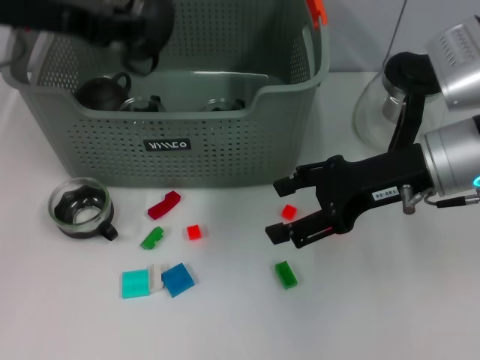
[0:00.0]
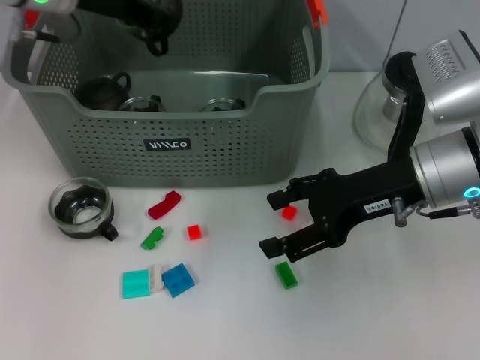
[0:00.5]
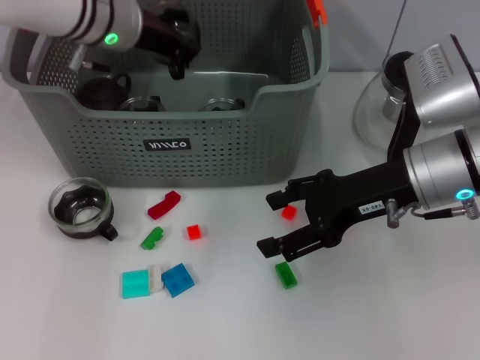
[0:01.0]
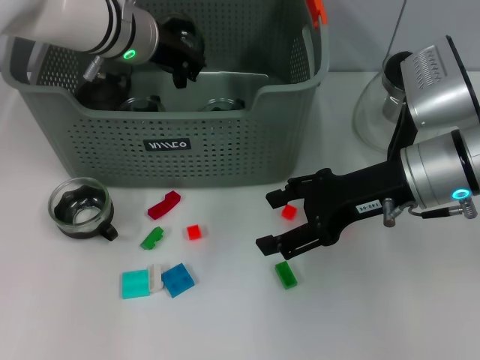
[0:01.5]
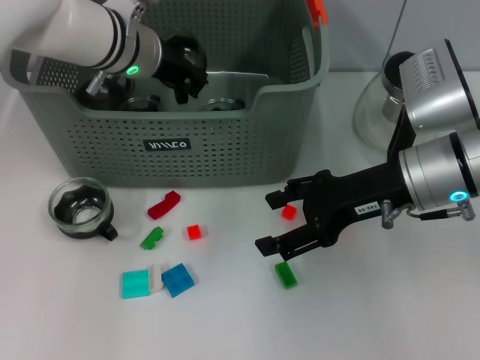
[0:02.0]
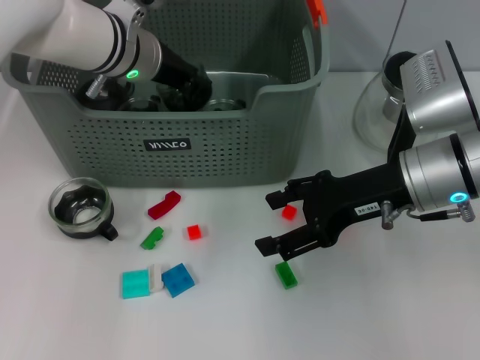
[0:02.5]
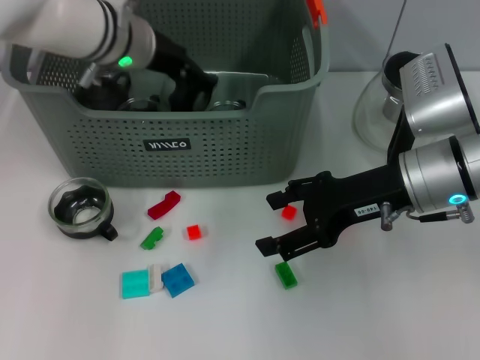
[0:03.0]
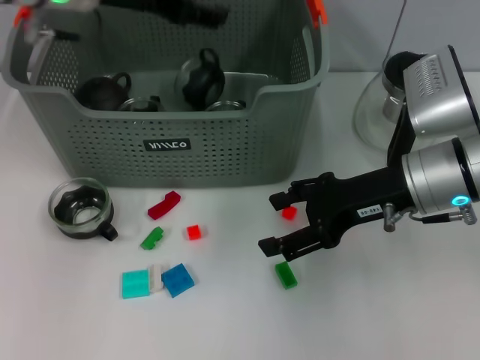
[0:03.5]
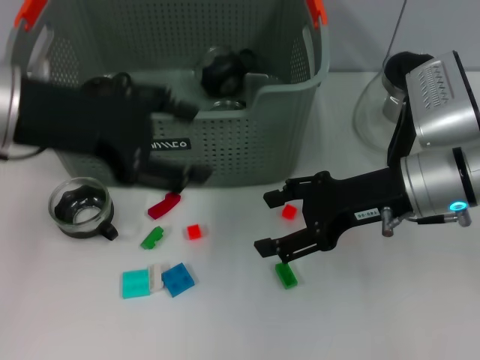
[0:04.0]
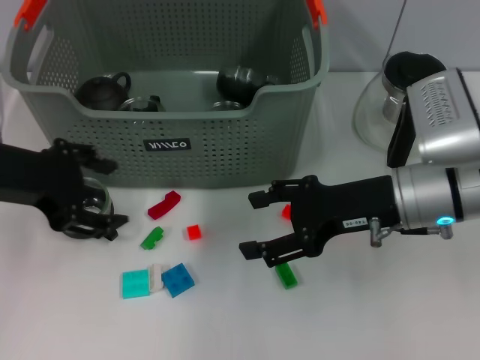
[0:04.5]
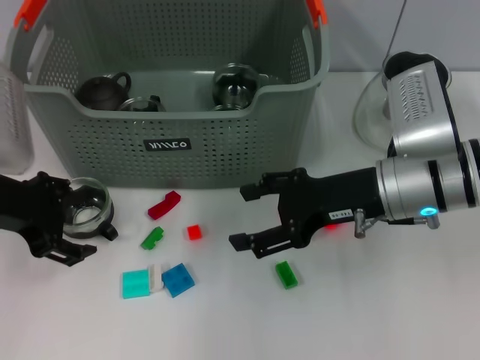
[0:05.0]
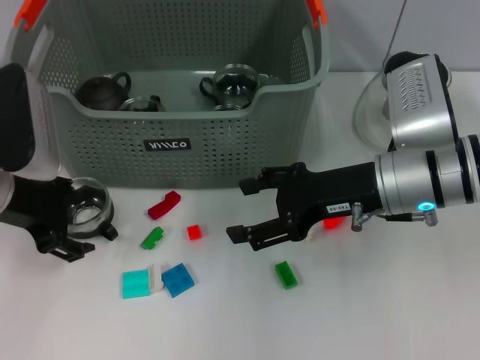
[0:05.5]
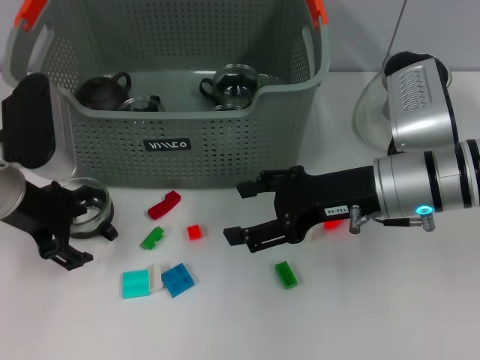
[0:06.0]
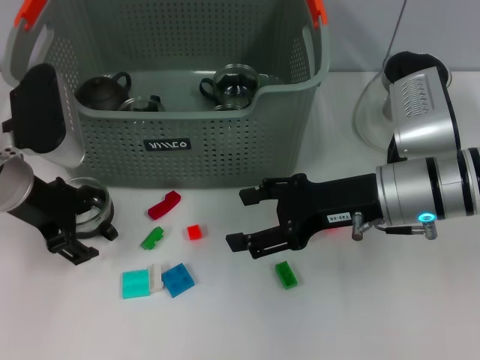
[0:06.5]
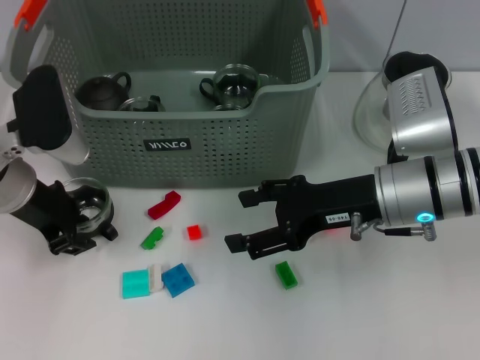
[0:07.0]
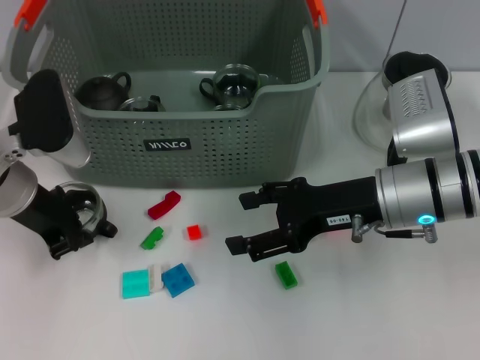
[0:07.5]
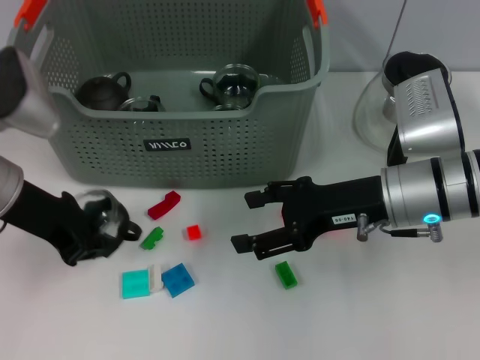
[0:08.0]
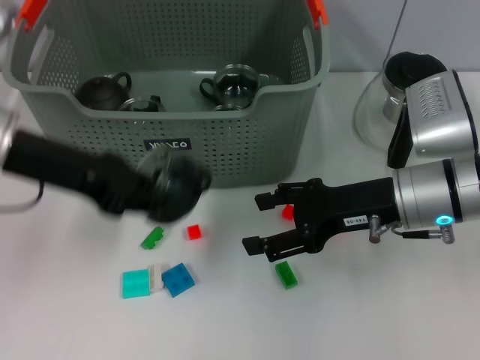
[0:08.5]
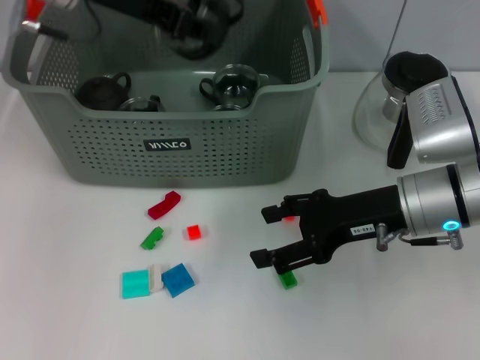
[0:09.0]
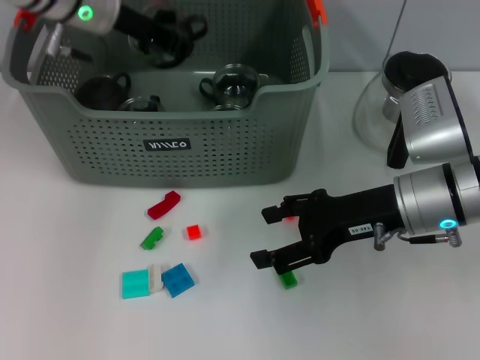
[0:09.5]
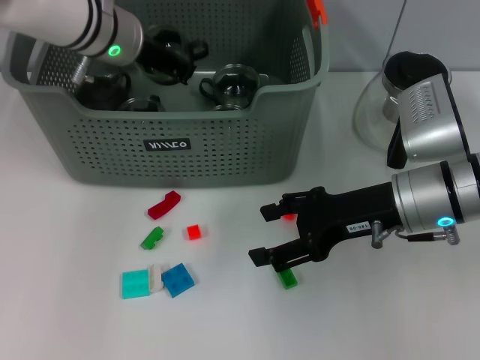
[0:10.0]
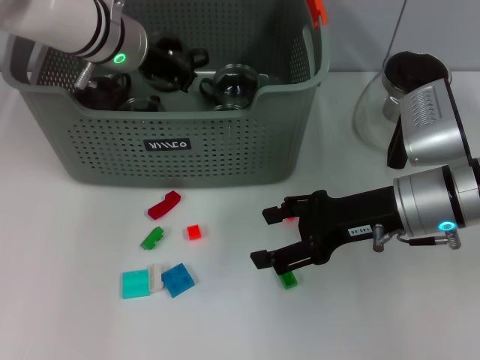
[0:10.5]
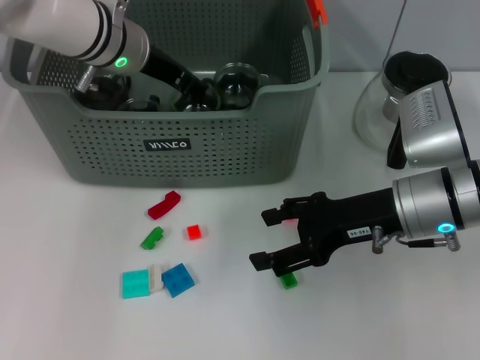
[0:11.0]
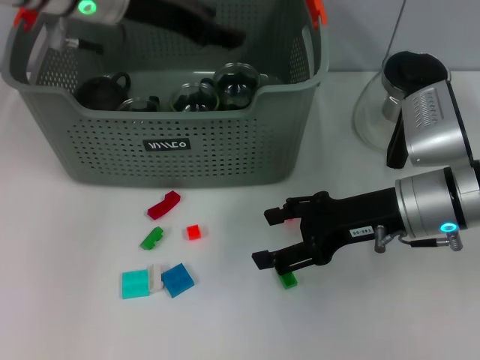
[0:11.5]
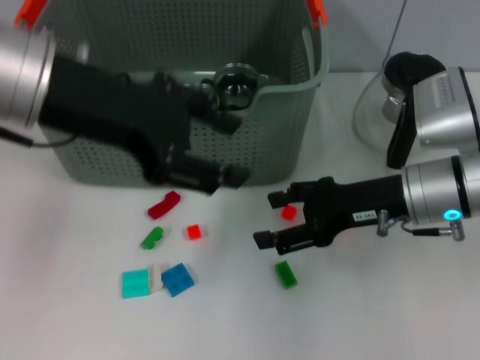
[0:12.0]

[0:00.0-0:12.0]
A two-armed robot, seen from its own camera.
Task of the whole recording: pick up the teacup on the table and place it into the storage bin, pick up the block on the table and place it into the storage bin.
Step, 0:00.0 to 0:03.0: Place the cup in the storage box with left gripper.
Step, 0:04.0 to 0:07.0: Grasp the cup with left gripper.
Step, 0:07.5 to 0:11.0: Place the cup in the storage box with left gripper.
0:00.0 to 0:02.0: The left gripper travels to the right, downward and forward by approximately 15 cm.
0:02.0 to 0:04.0: The left gripper shifts approximately 20 cm backward, to the left and upward, and opens its fingers.
0:04.0 to 0:06.0: The left gripper goes approximately 10 cm downward.
0:06.0 to 0:08.0: The left gripper closes.
0:08.0 to 0:10.0: The left gripper moves forward and to the right, some 15 cm.
0:10.0 to 0:12.0: The left gripper is displaced backward and upward by roughly 20 cm, and opens its fingers.

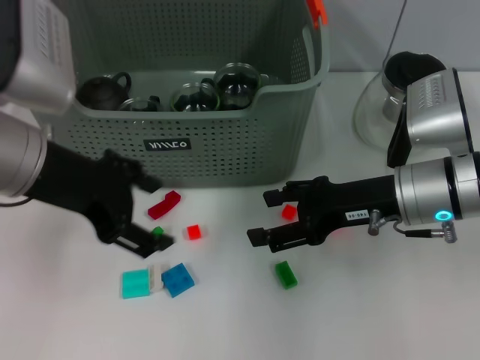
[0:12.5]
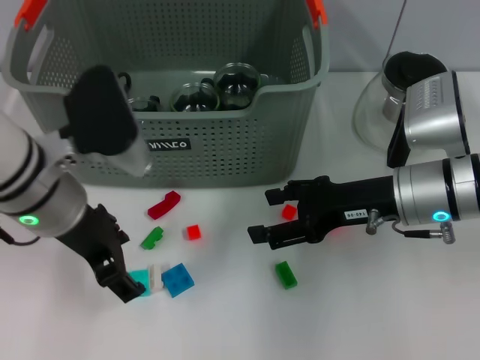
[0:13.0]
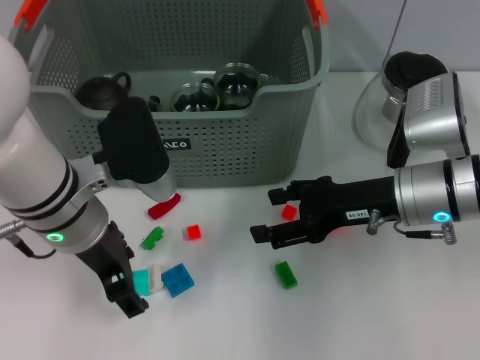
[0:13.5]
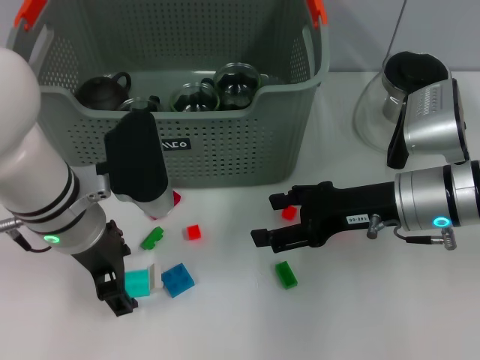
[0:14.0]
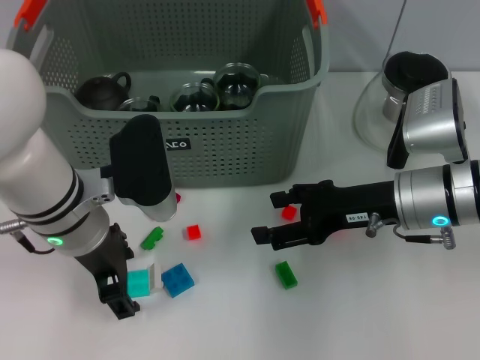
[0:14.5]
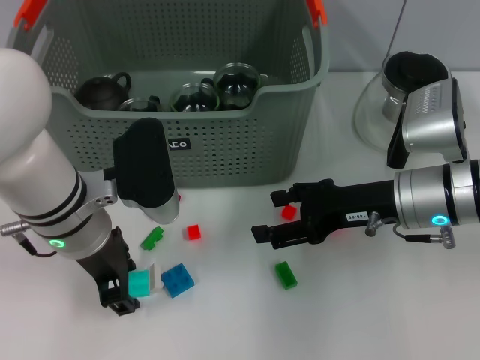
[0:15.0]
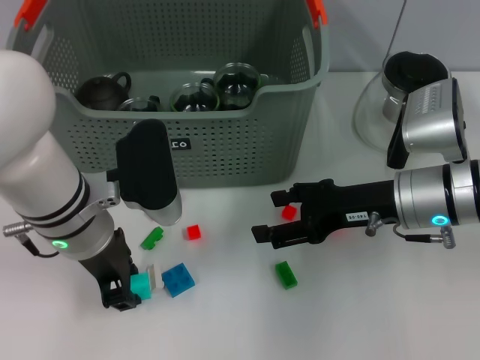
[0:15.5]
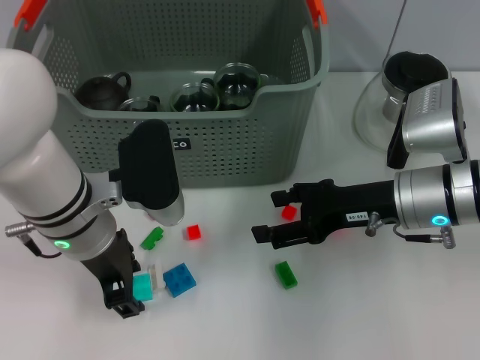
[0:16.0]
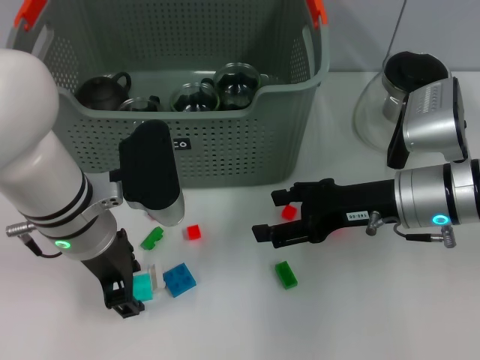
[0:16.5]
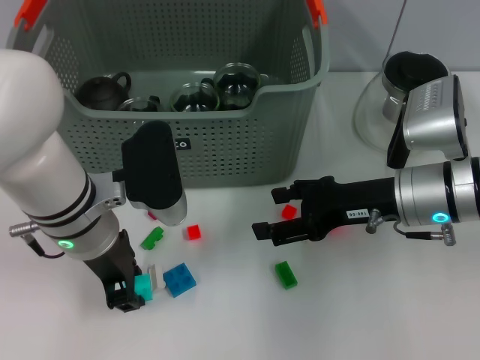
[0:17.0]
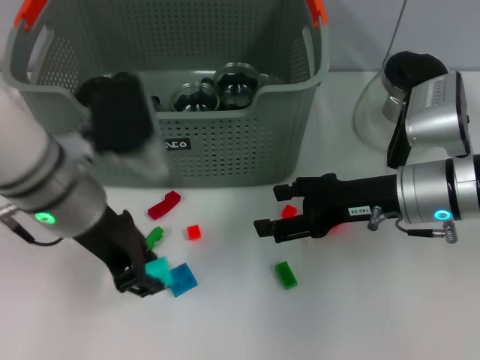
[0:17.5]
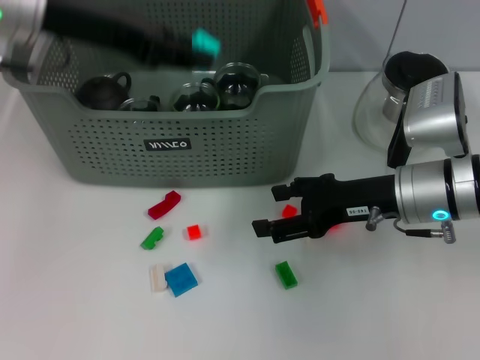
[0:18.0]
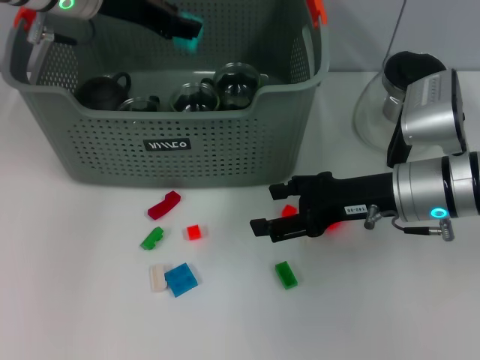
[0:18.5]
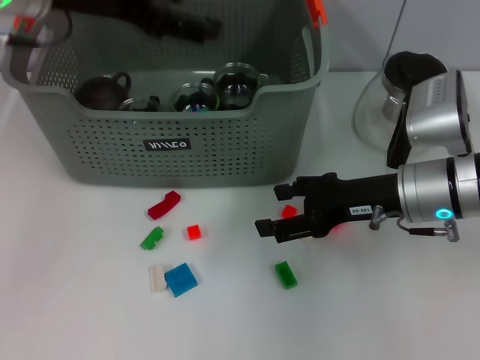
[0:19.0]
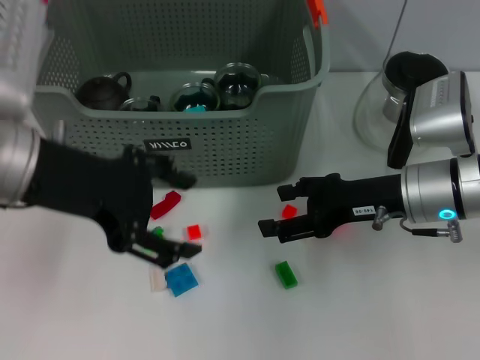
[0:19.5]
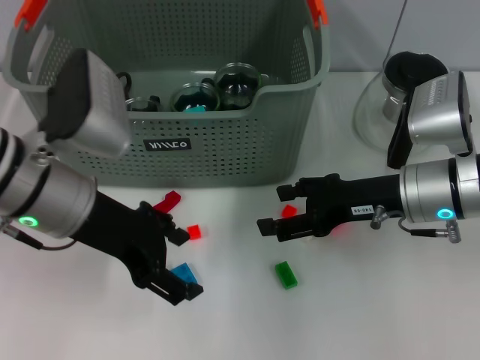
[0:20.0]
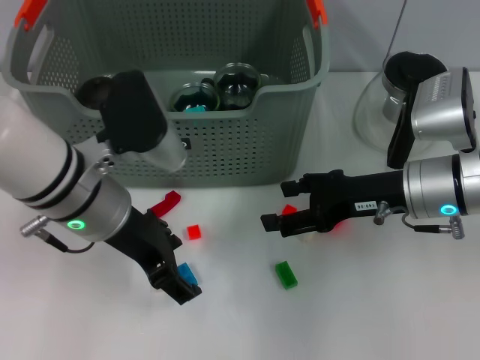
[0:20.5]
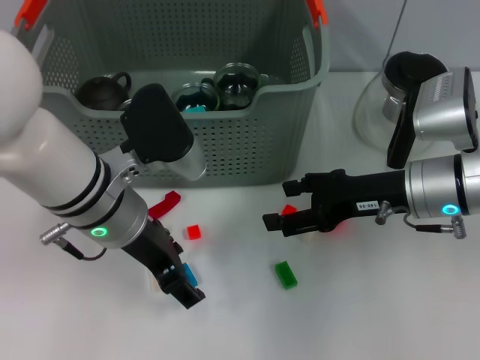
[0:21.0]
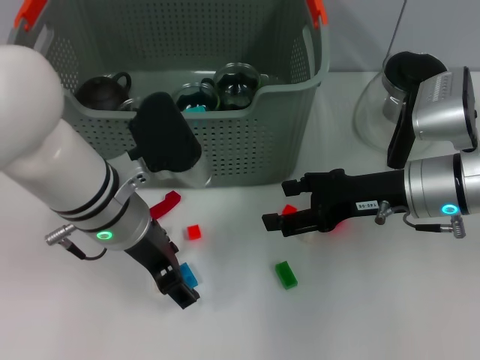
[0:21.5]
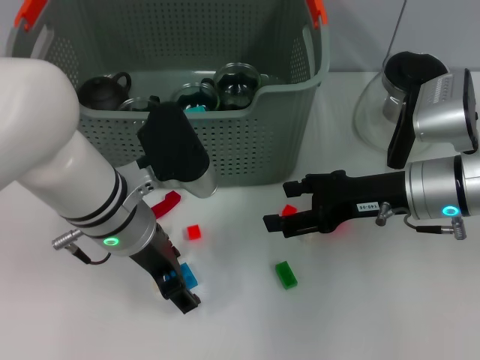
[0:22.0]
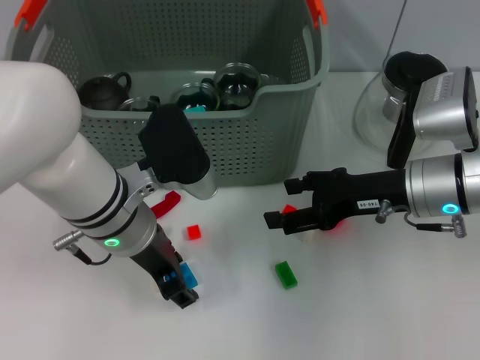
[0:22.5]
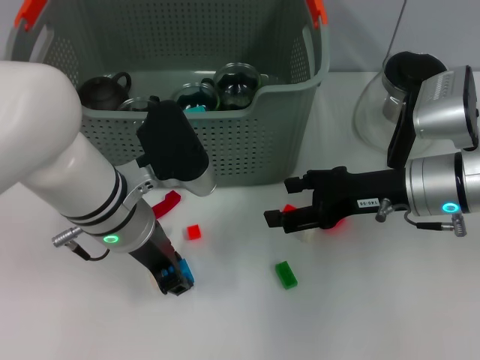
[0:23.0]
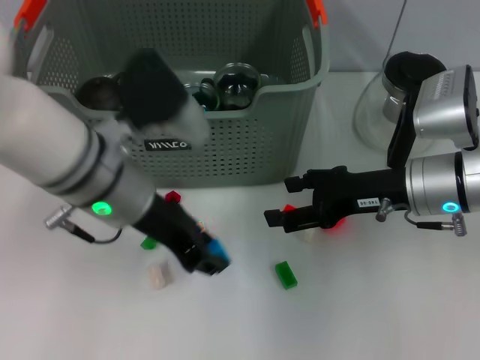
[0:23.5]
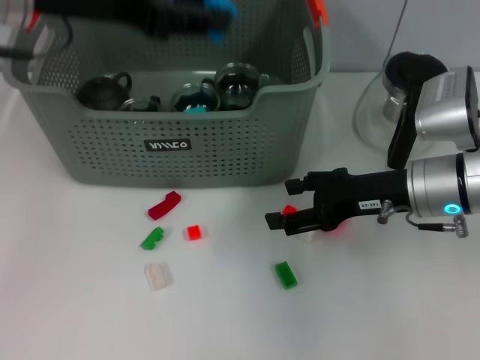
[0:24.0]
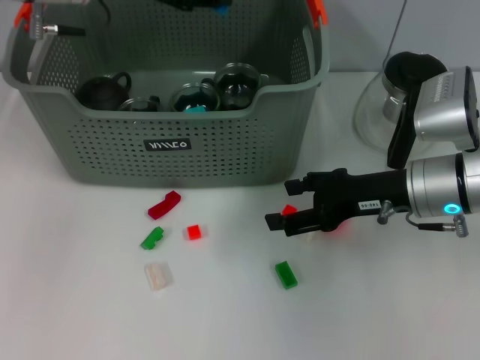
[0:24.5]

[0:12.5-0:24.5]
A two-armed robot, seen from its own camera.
Task of the whole recording: pick up the teacup on the table and place it into the storage bin, pick up the block on the table and place it into the storage bin.
Step, 0:12.5 to 0:17.0: Grasp the light blue block with left gripper.
Step, 0:17.5 to 0:18.5: Place the light blue block in the storage box with left gripper.
Step, 0:19.5 to 0:22.5: Grasp the dark blue block with left gripper.
0:12.5 to 0:14.5: The left gripper travels downward by roughly 10 cm.
0:14.5 to 0:16.5: Neither gripper changes place.
0:16.5 to 0:18.5: The left gripper shifts roughly 20 cm forward and upward.
0:18.5 to 0:20.5: The left gripper is displaced backward and downward by roughly 15 cm, and opens its fingers.
0:20.5 to 0:22.5: The grippers move only a little.
0:22.5 to 0:24.5: The left gripper travels upward, forward and to the left by about 20 cm, and closes.

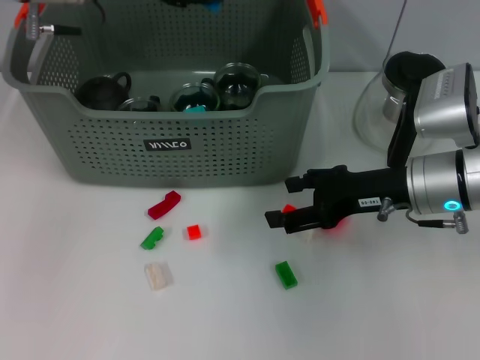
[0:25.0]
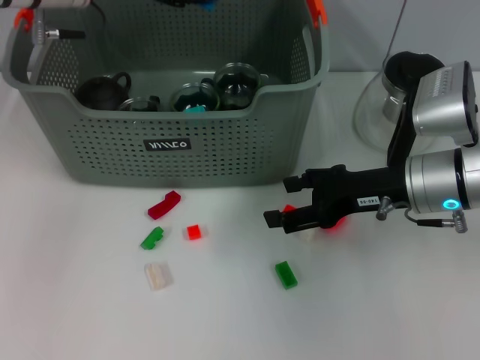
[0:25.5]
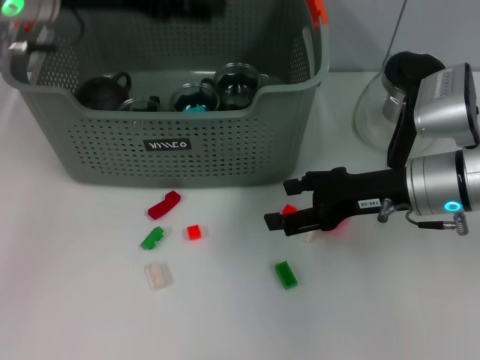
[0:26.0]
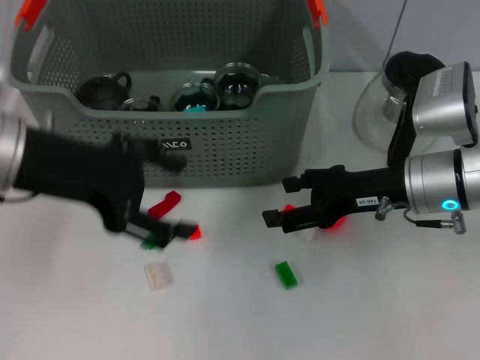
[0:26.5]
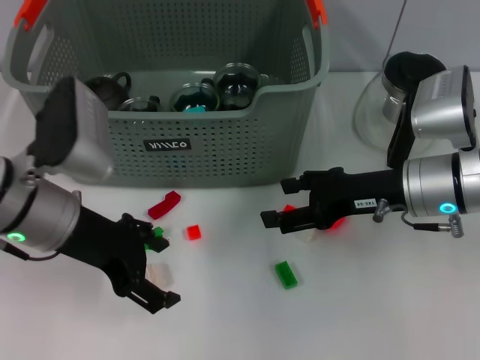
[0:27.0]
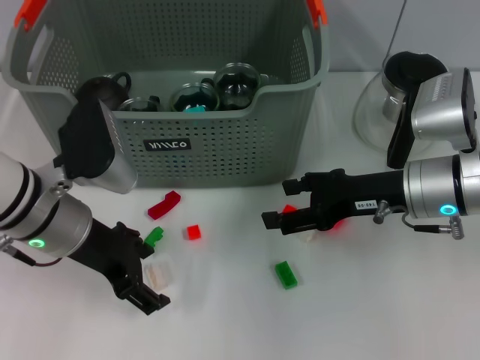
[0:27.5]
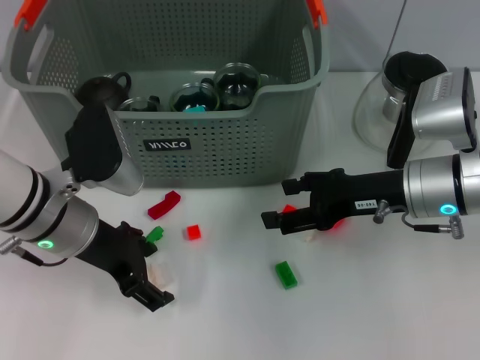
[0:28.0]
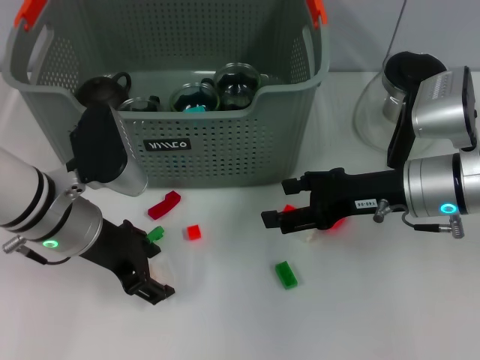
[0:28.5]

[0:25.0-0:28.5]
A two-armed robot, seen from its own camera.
Task of the whole recording: pick up the teacup on the table and place it into the storage bin, pick up the block on the table and place it into the storage bin.
0:25.0 to 0:27.0: The left gripper shifts approximately 15 cm backward and downward, and opens its fingers.
0:27.0 to 0:28.5: There are only small adjustments of the grippers.
